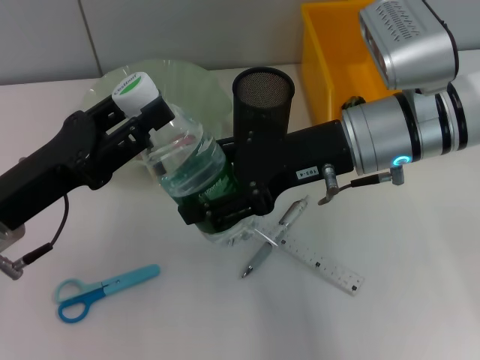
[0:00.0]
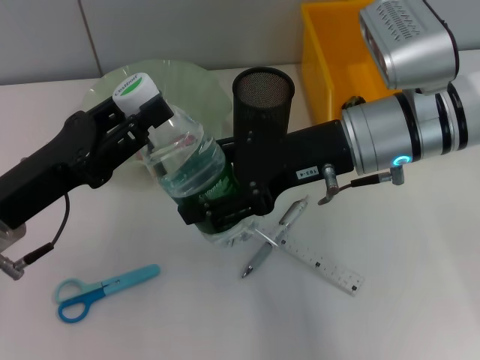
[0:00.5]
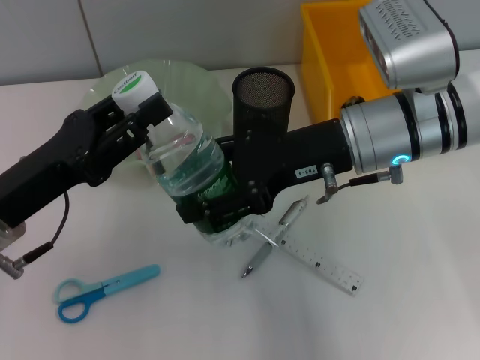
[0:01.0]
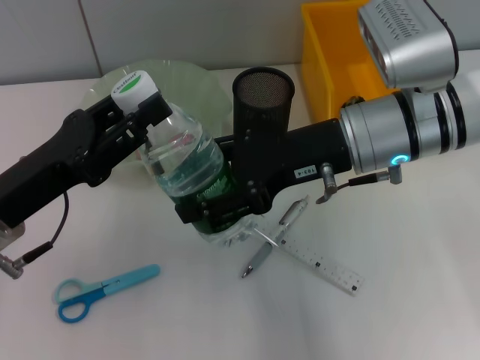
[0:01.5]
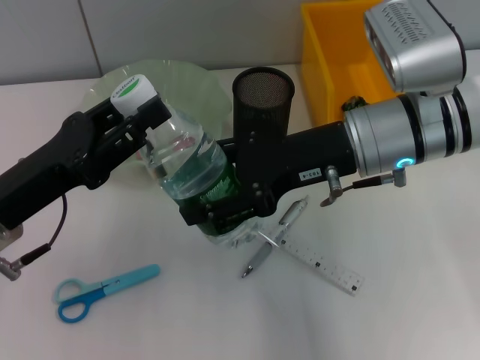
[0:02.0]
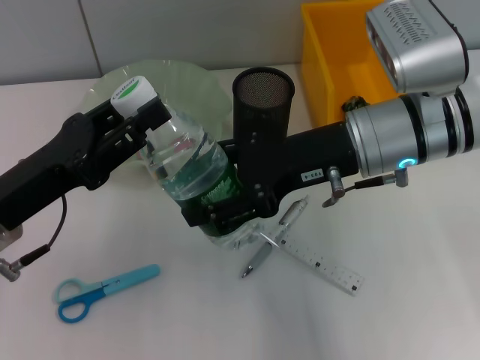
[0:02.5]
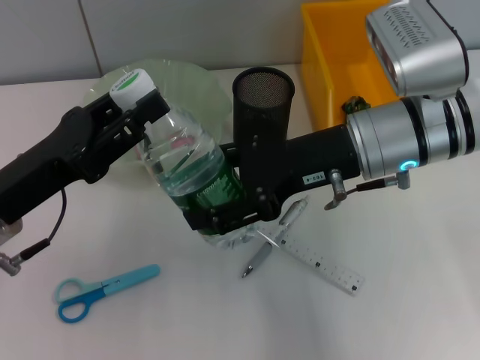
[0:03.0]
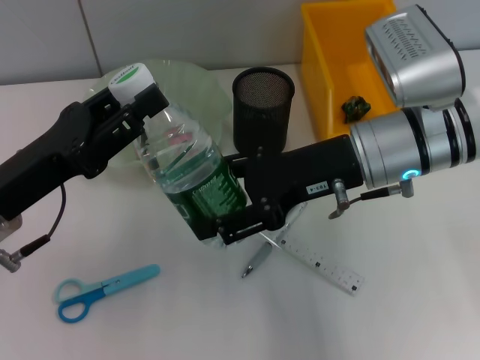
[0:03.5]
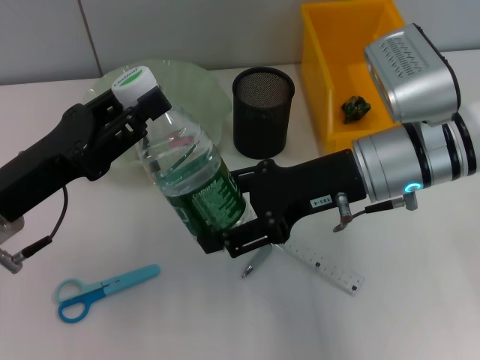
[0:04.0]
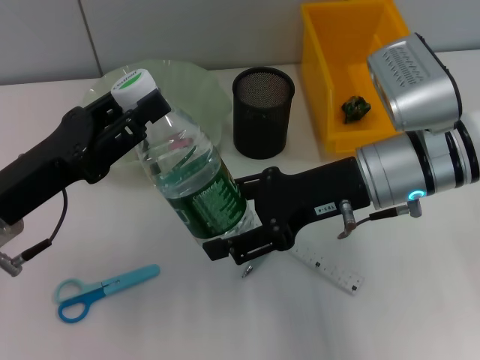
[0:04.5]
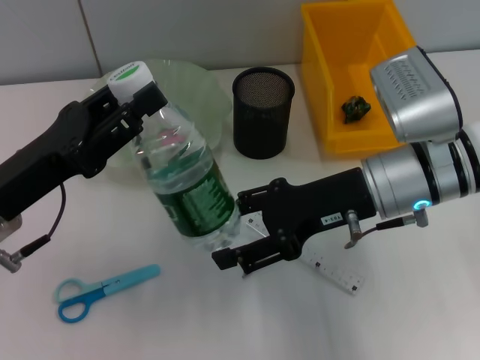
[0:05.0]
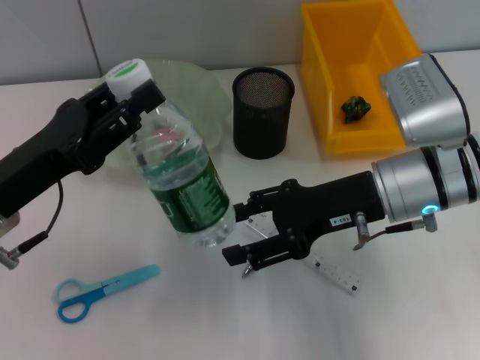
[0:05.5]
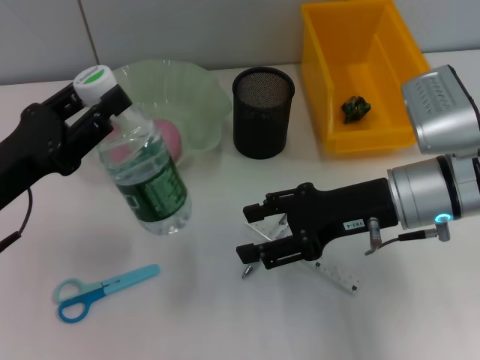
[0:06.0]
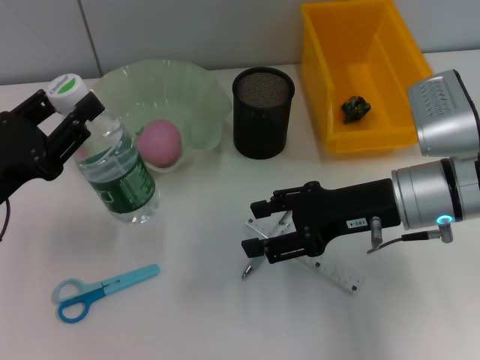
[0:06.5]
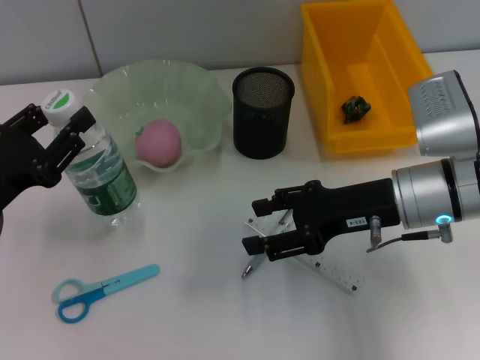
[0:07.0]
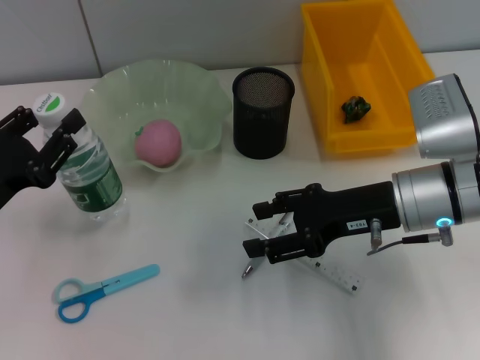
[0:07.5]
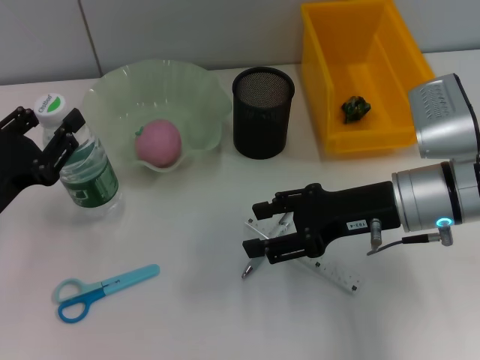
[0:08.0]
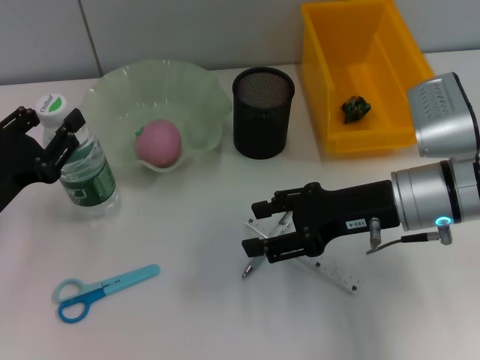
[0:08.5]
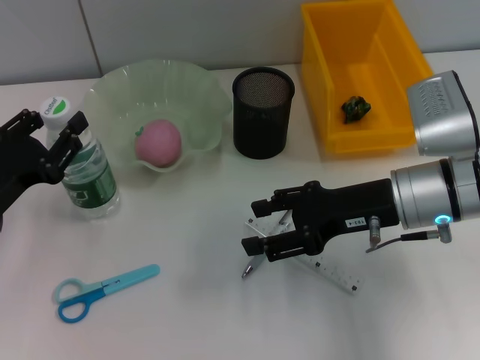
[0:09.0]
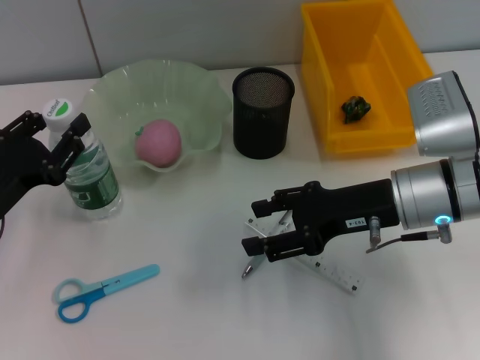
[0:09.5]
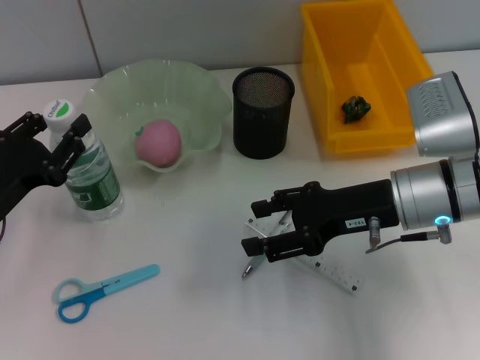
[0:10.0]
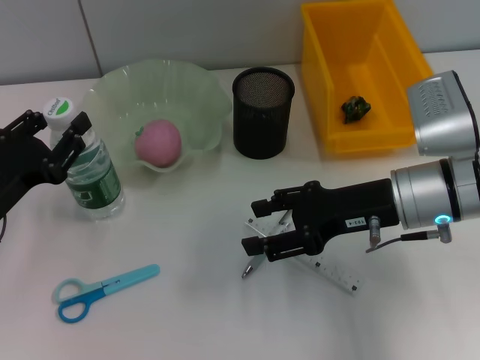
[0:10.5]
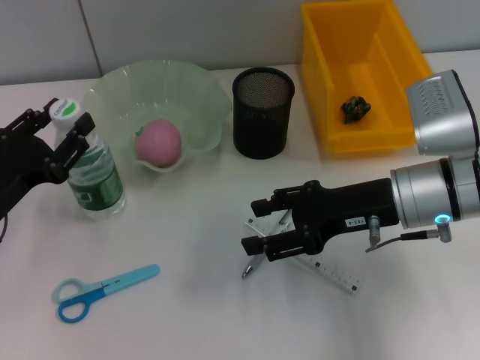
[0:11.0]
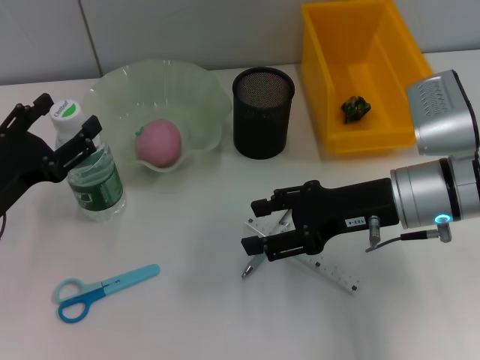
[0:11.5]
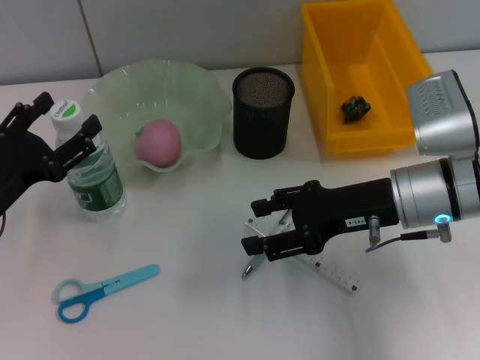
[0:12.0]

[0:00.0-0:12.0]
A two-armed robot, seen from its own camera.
Step, 0:00.0 to 0:05.0: Pass the water bottle from the right hand to the left hand.
Step, 0:05.5 to 0:11.5: Place the water bottle on the table with the left hand.
0:00.0 to 0:02.0: The two grippers keep their place.
0:02.0 to 0:04.0: The grippers move only a little.
0:08.0 to 0:10.0: Neither gripper changes place.
0:10.0 to 0:12.0: The left gripper opens.

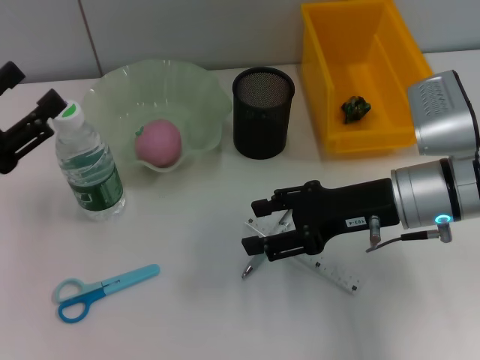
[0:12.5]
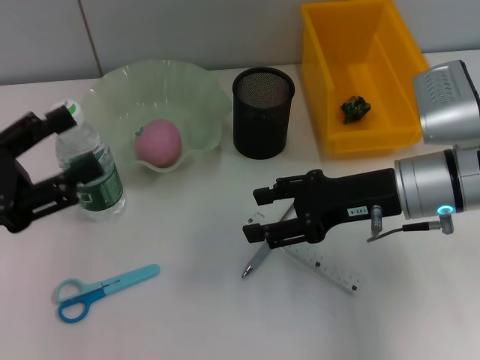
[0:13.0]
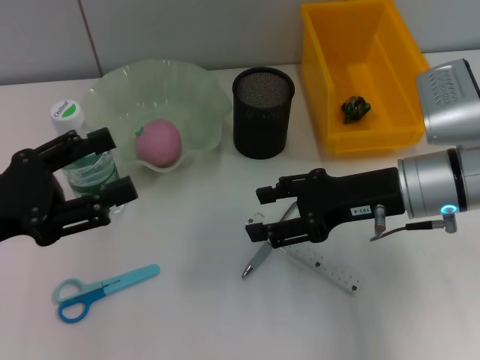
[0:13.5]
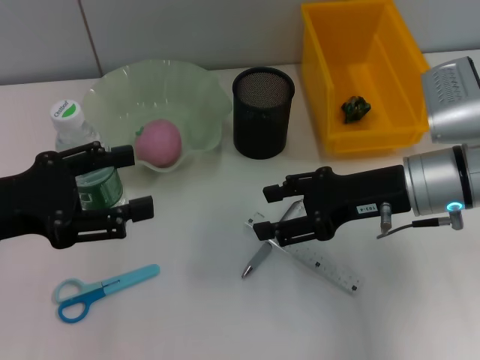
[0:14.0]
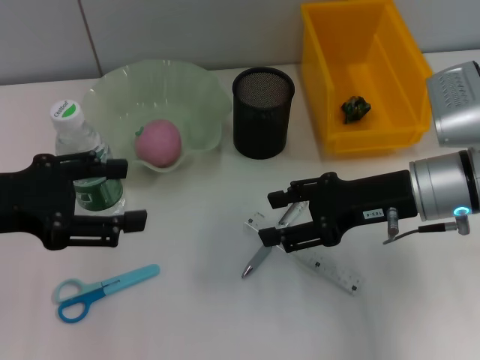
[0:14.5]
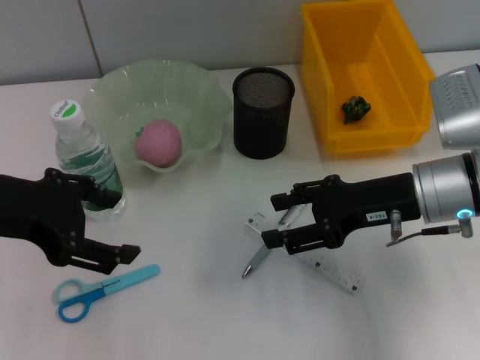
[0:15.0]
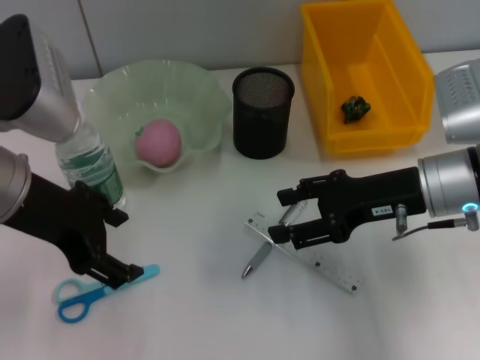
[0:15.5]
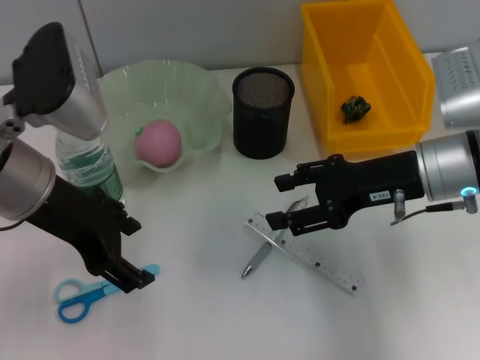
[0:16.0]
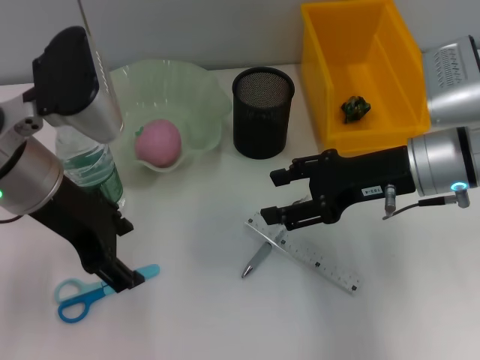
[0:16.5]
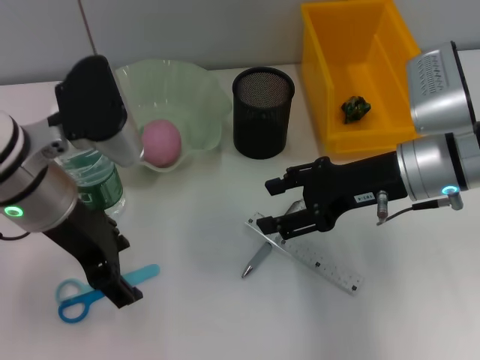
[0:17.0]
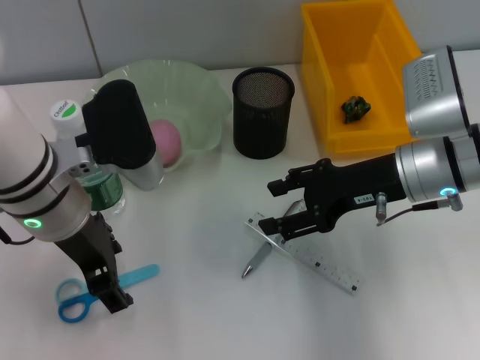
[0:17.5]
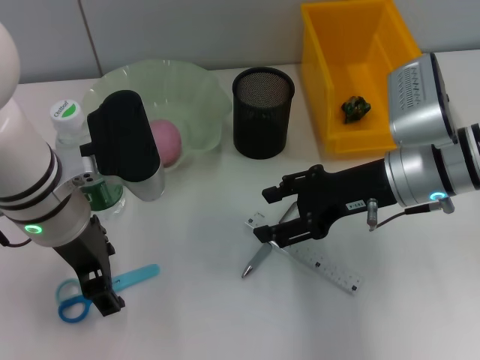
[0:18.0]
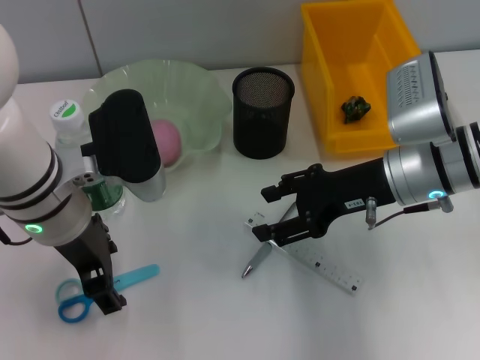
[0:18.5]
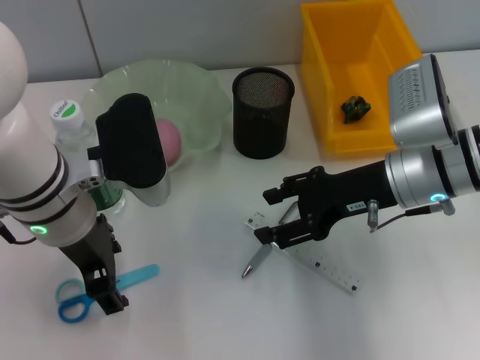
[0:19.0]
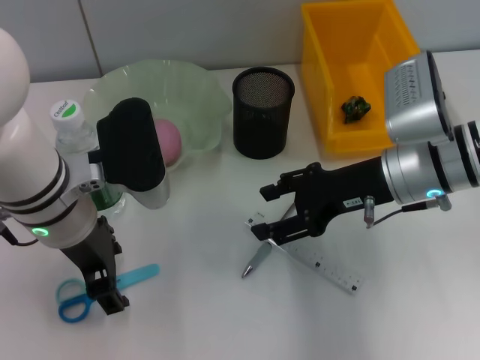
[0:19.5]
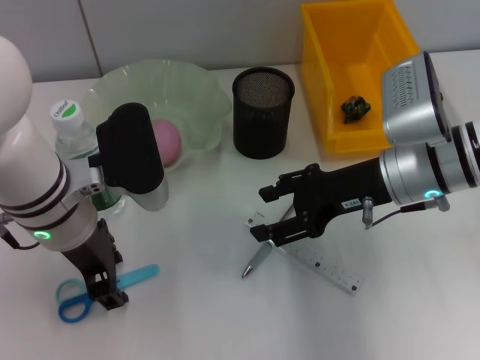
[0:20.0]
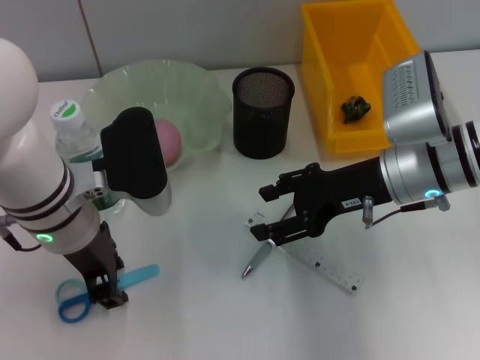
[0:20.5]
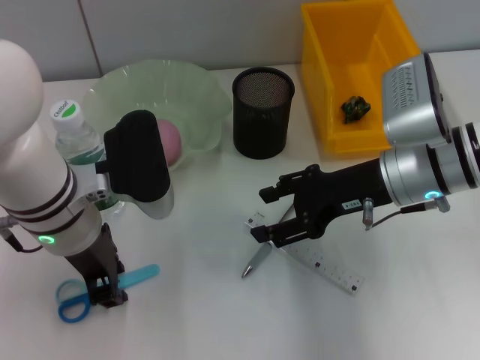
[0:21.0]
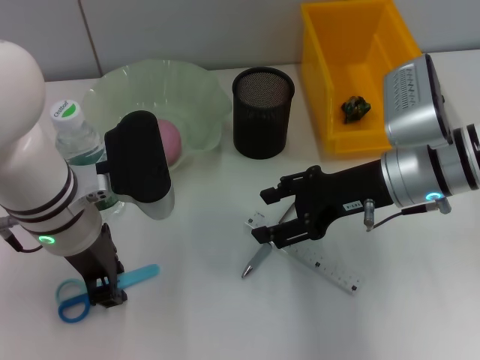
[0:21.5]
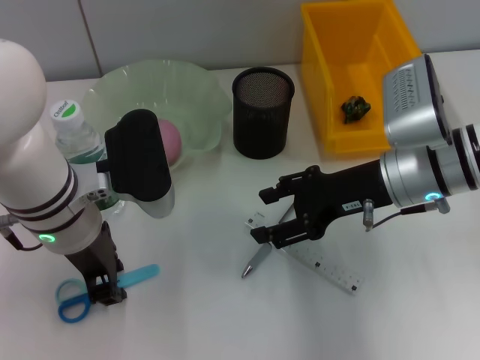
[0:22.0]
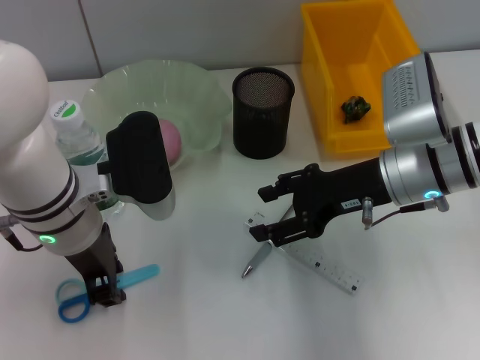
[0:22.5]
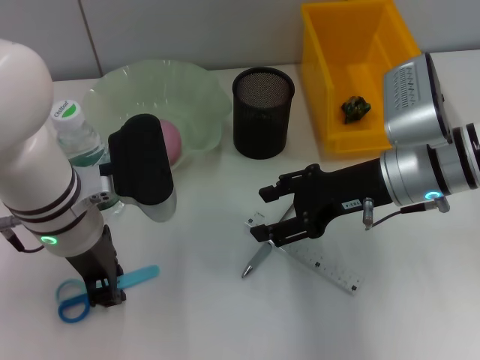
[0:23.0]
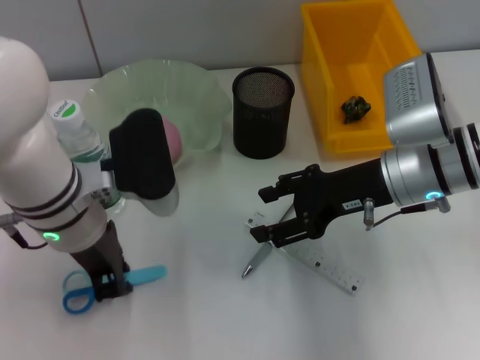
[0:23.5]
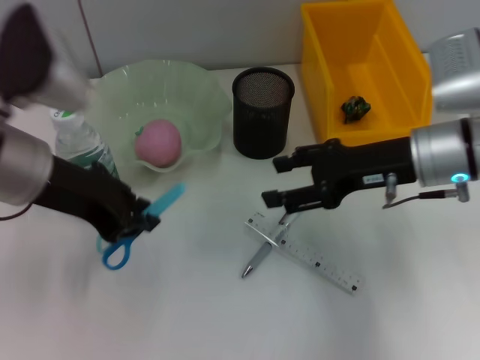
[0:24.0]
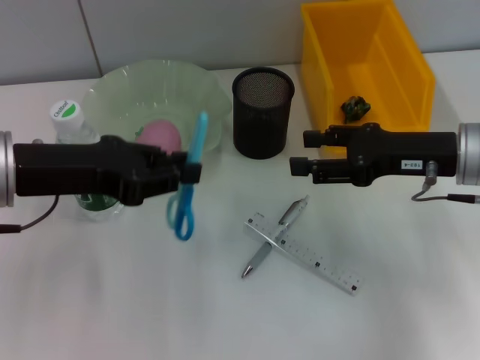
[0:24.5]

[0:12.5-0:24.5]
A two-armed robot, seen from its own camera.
Step, 0:12.5 to 0:23.0: Grab the blue scissors with the left hand.
0:12.5 to 0:14.5: The left gripper moves upward, some 5 cm.
0:14.5 to 0:16.5: The left gripper travels to the right by approximately 10 cm.
0:18.5 to 0:20.5: The left gripper closes its fingers.
0:20.5 to 0:22.5: Both grippers stay put.
0:22.5 to 0:24.5: The left gripper moves to the left, about 10 cm, while the right gripper moves to the right, roughly 5 cm.

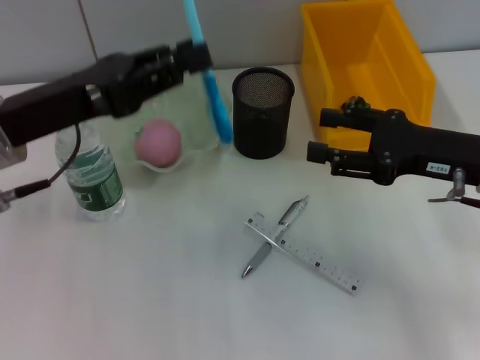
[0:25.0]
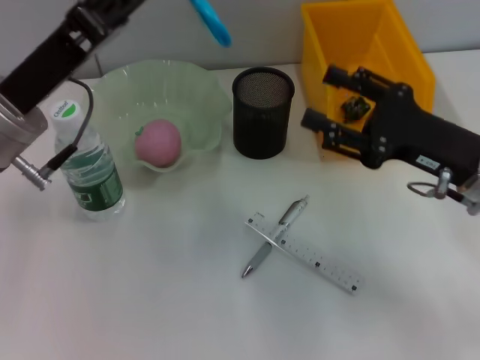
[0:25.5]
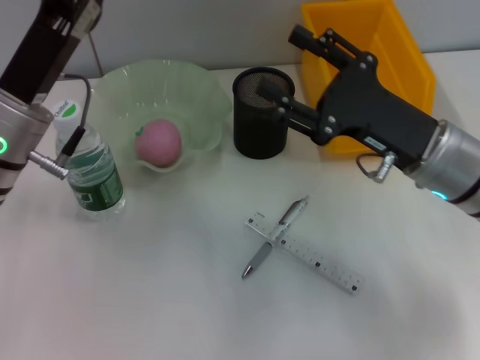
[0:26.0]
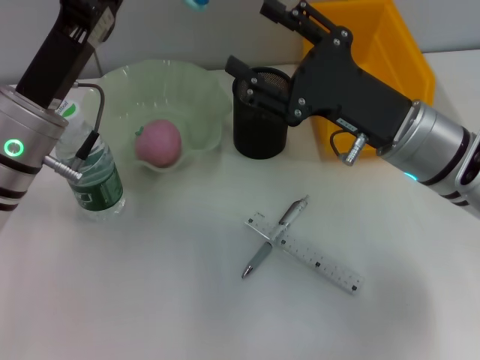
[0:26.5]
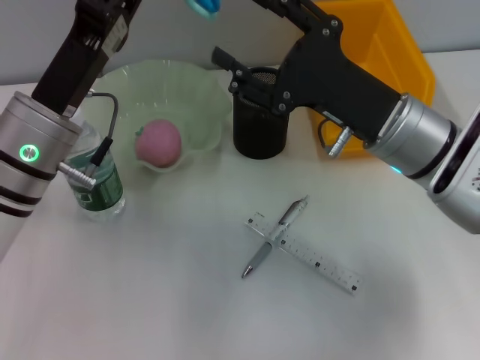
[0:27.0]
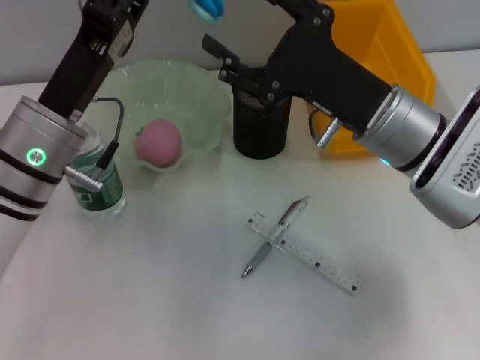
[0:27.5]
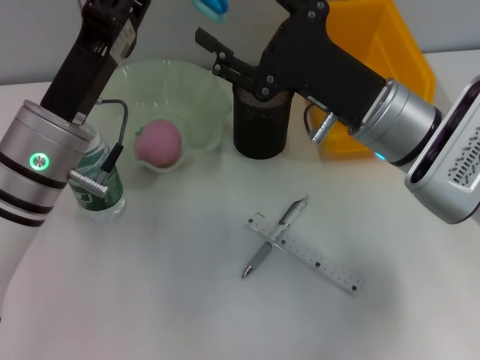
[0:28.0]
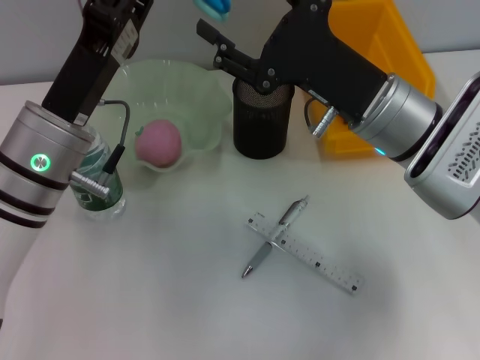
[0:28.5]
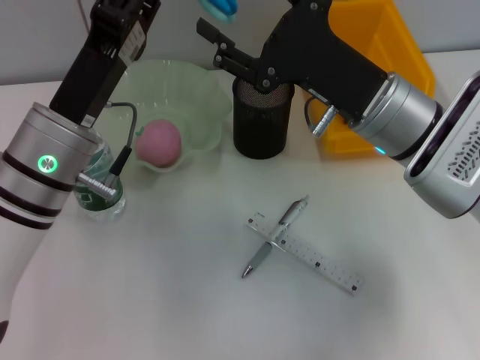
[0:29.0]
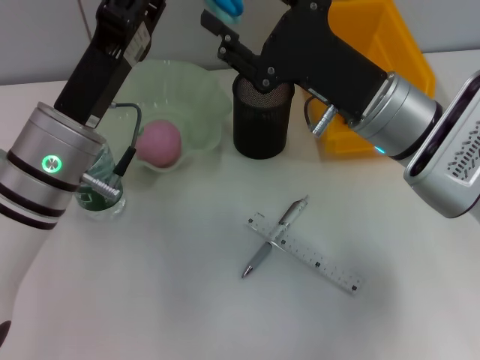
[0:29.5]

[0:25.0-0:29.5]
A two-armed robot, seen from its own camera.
0:25.0 to 0:27.0: The right gripper goes approximately 10 cm to the left; the left gripper heads downward, covering about 5 cm.
0:27.0 to 0:29.5: The grippers stay close to where they were, moving slightly.
